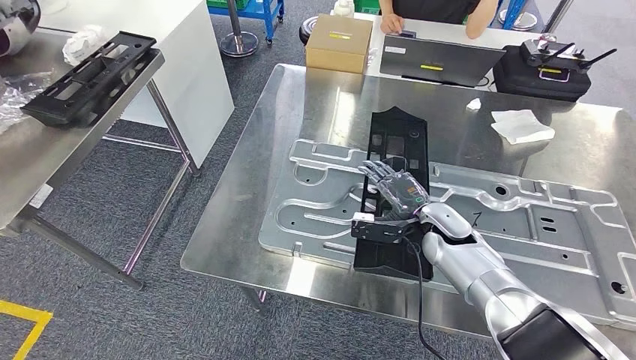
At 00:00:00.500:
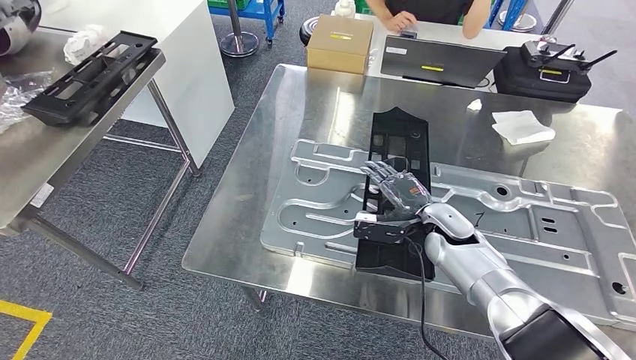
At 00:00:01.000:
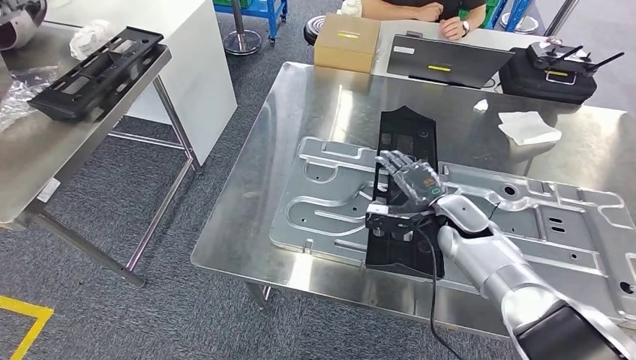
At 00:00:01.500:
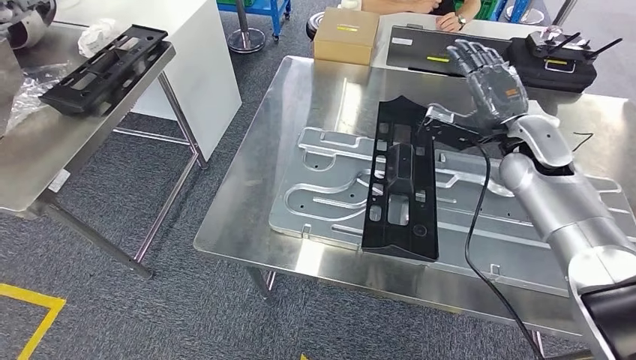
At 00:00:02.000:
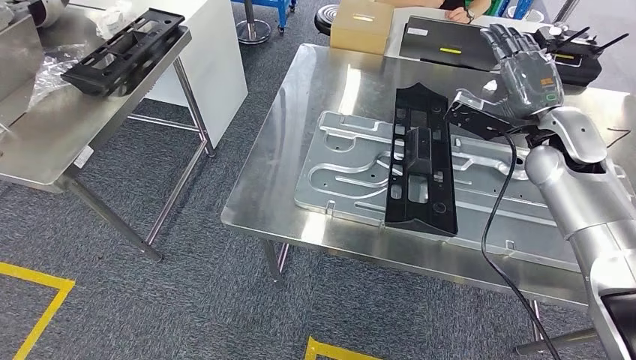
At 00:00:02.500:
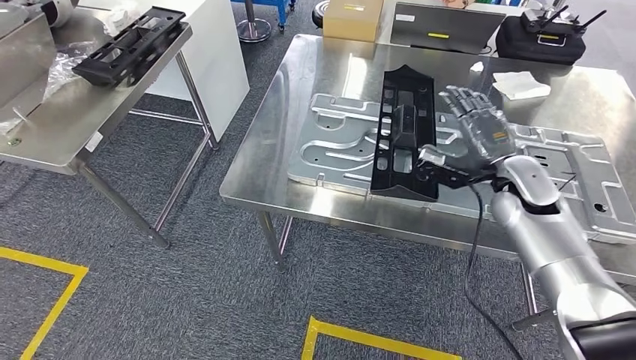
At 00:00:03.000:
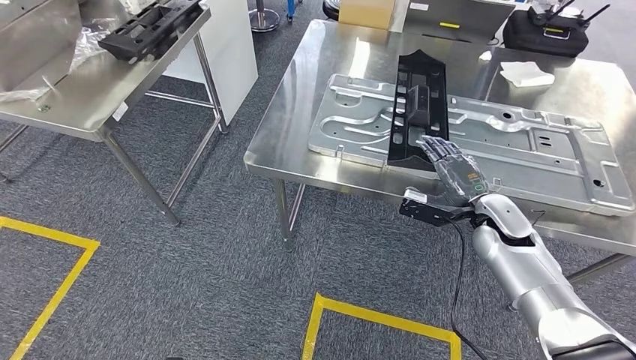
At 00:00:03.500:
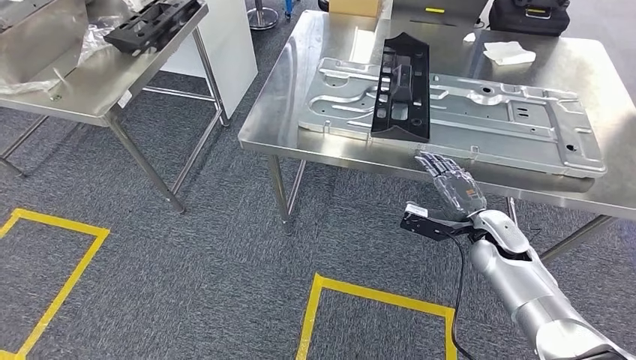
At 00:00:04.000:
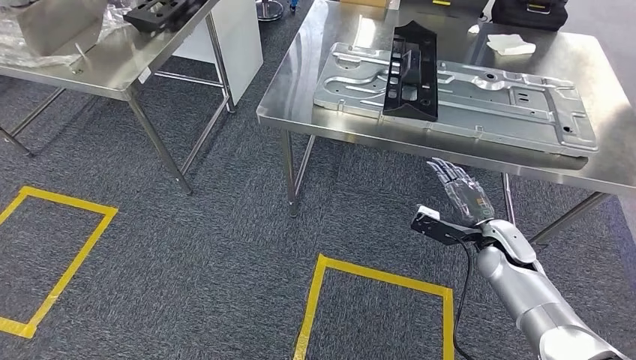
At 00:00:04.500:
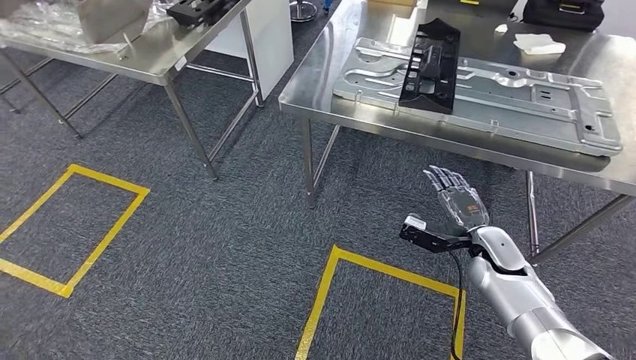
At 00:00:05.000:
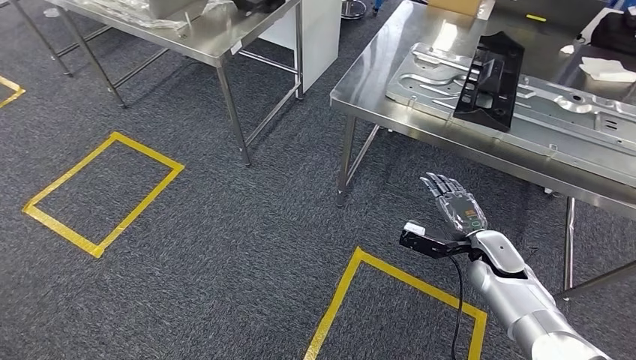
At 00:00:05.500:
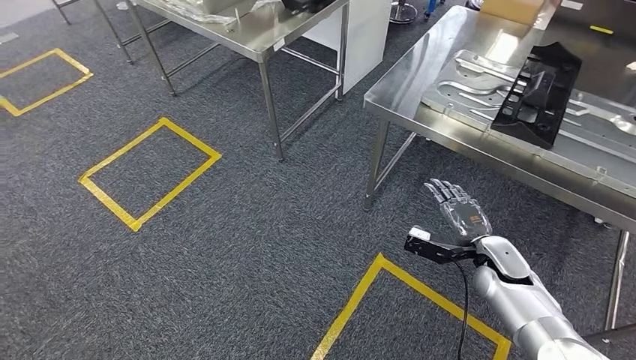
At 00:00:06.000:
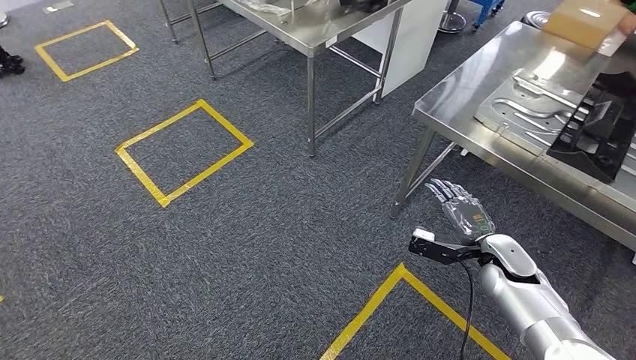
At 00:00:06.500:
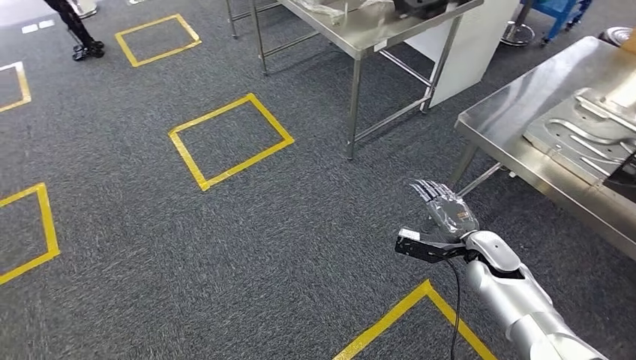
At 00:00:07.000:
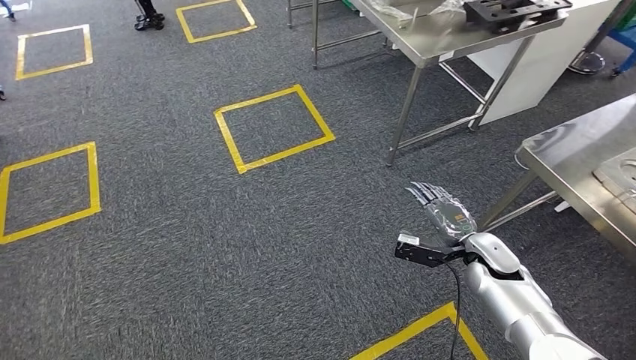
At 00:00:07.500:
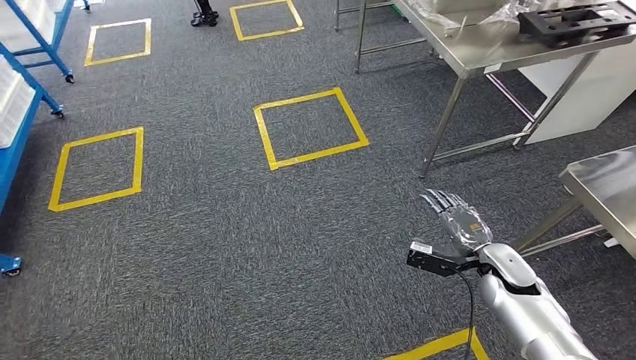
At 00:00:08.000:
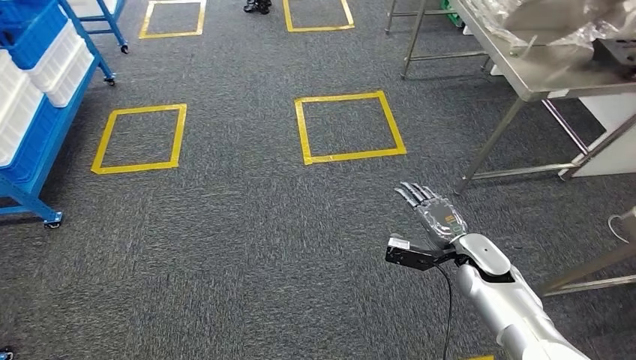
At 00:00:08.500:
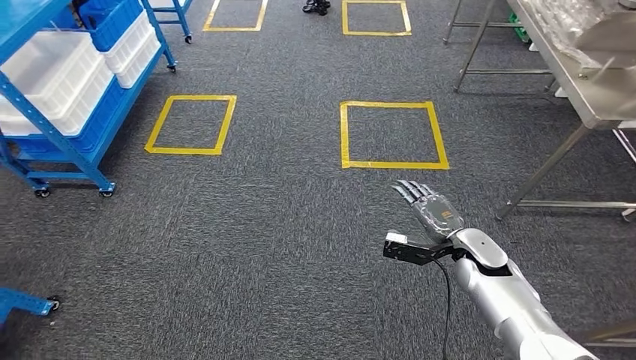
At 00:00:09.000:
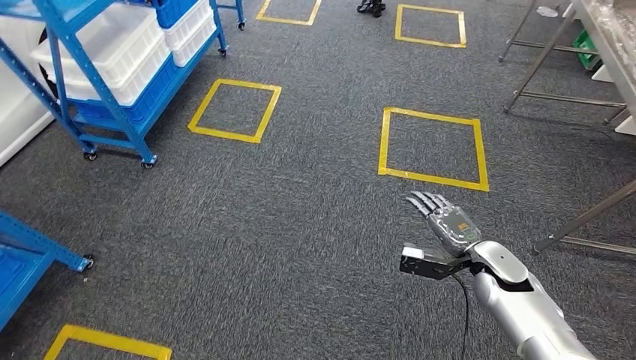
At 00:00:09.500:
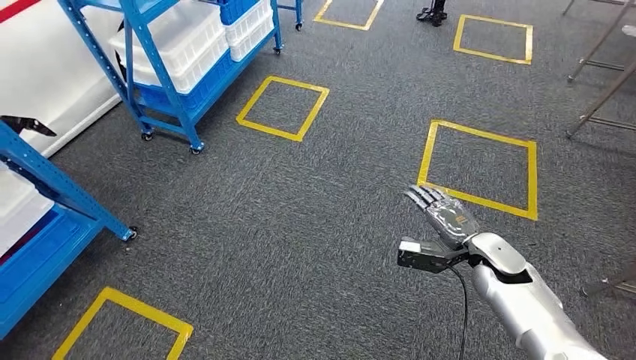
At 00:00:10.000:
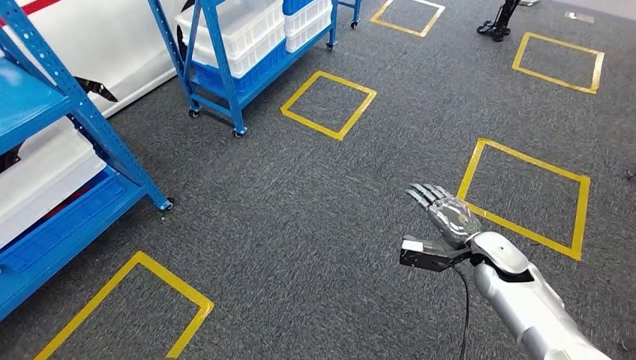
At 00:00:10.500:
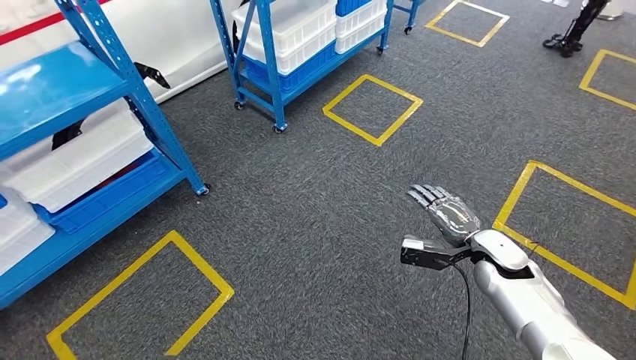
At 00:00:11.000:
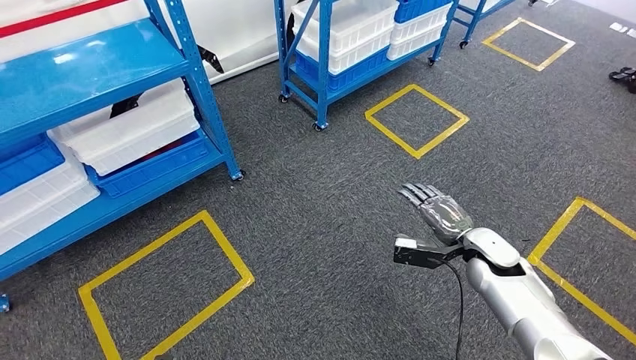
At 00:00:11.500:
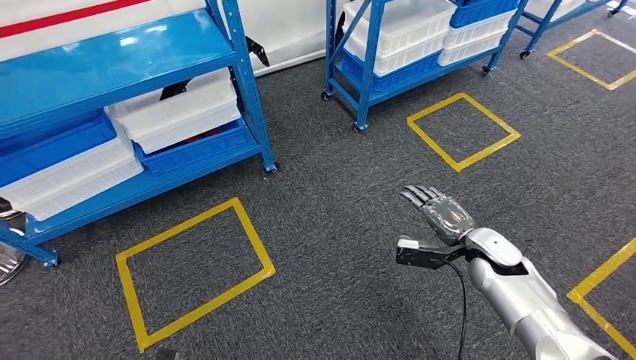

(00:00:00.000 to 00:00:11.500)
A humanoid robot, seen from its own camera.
Step, 00:00:00.000 - 00:00:03.000: Insert the large material into the corresponding hole on the workbench.

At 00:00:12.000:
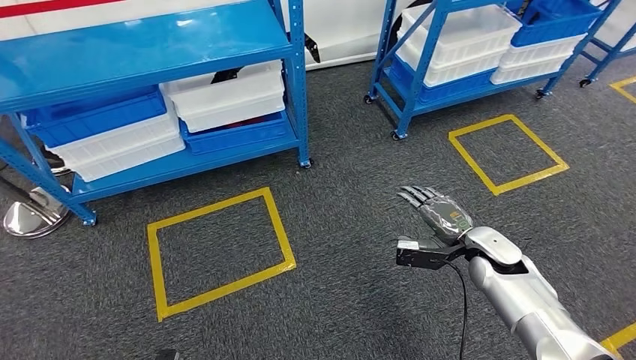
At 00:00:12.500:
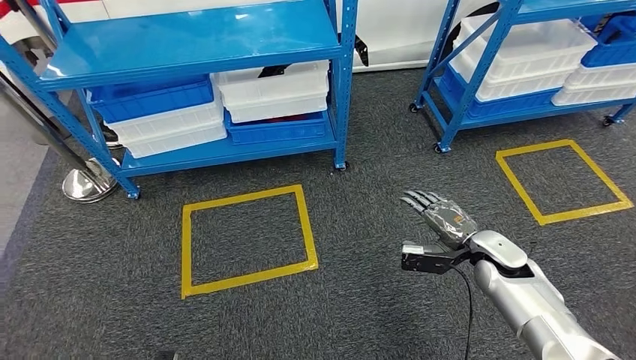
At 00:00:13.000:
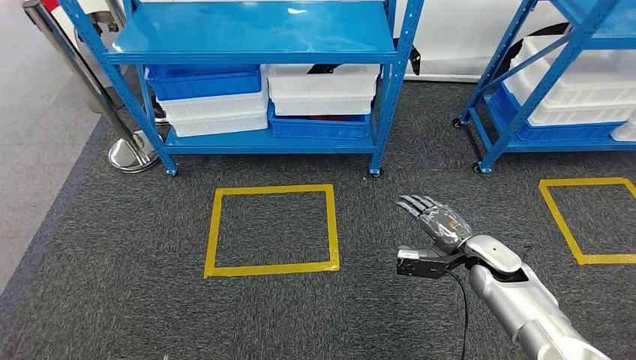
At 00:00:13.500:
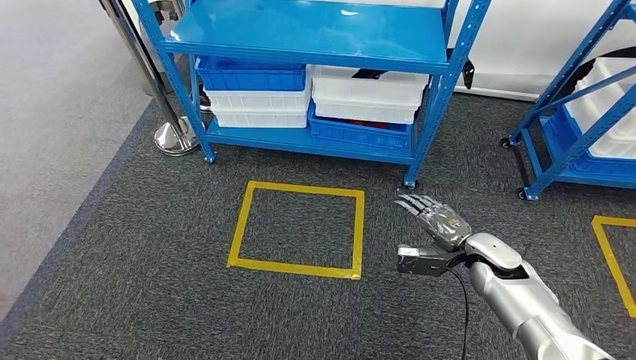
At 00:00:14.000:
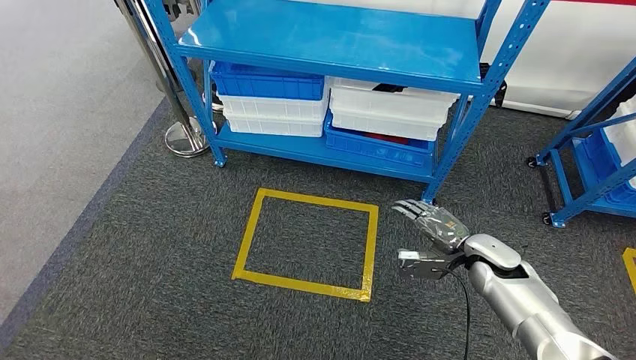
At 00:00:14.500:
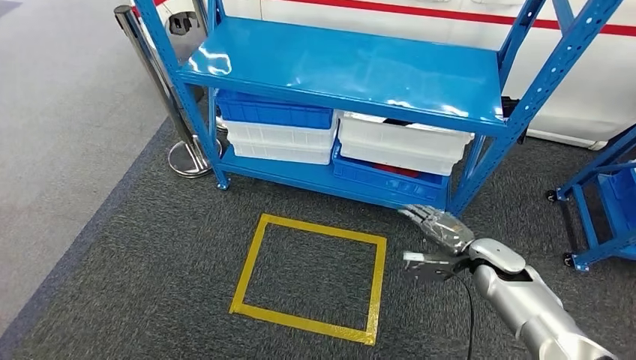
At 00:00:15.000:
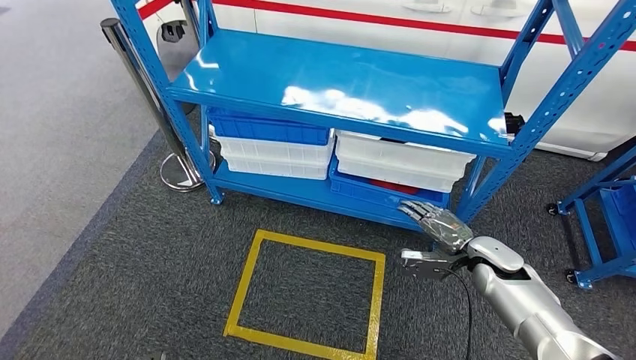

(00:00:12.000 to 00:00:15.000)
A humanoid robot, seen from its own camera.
Step, 00:00:12.000 - 00:00:15.000: Move to the initial position of the shelf.
